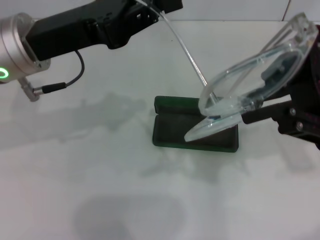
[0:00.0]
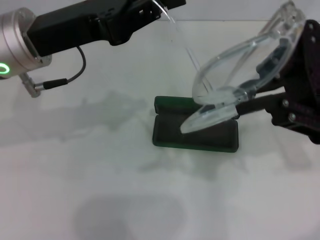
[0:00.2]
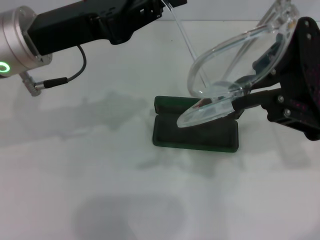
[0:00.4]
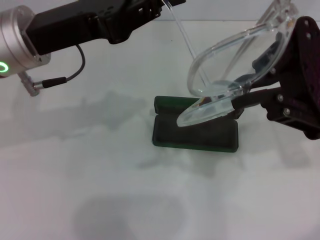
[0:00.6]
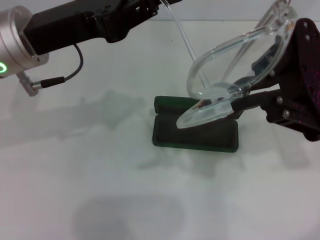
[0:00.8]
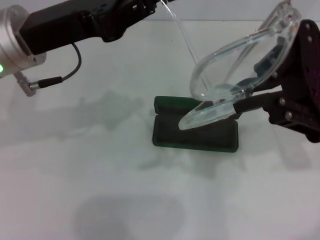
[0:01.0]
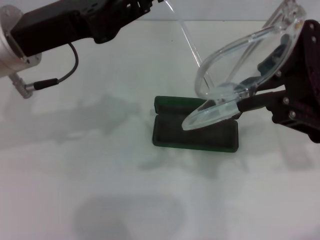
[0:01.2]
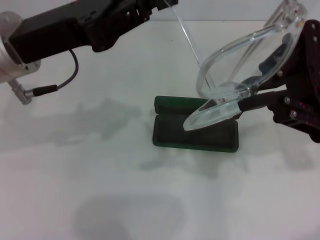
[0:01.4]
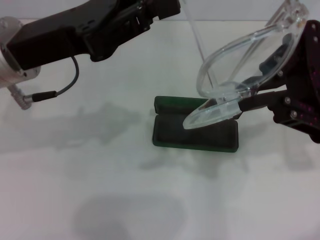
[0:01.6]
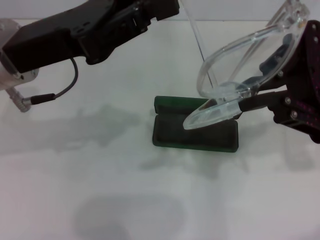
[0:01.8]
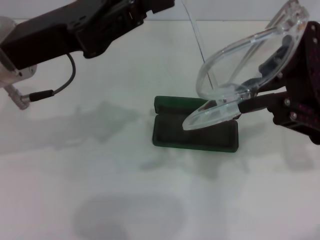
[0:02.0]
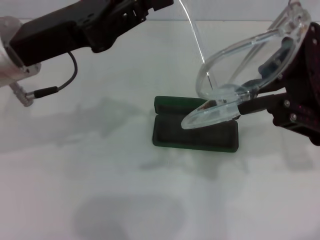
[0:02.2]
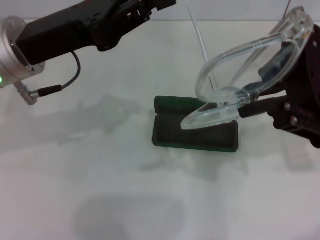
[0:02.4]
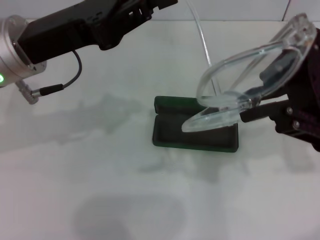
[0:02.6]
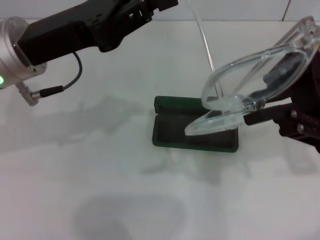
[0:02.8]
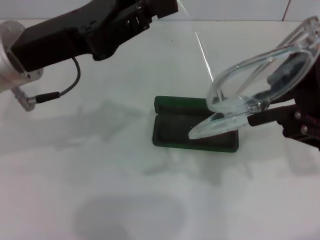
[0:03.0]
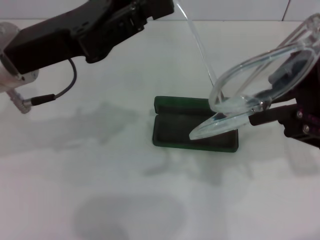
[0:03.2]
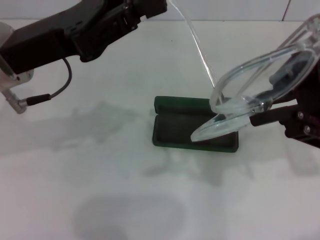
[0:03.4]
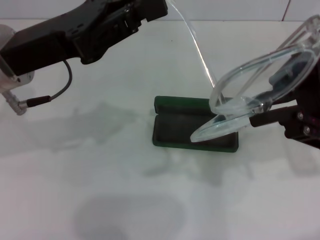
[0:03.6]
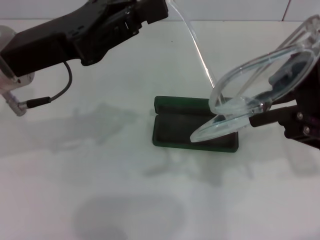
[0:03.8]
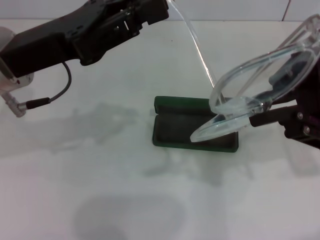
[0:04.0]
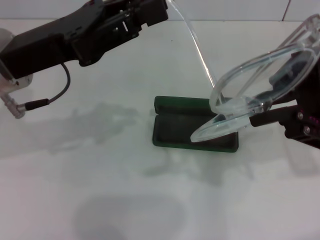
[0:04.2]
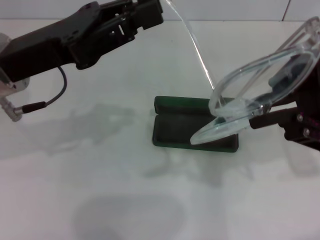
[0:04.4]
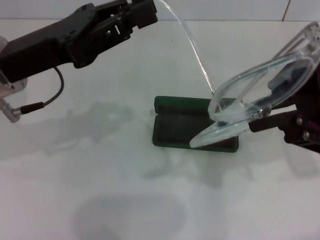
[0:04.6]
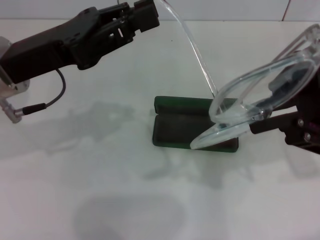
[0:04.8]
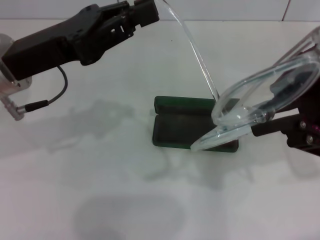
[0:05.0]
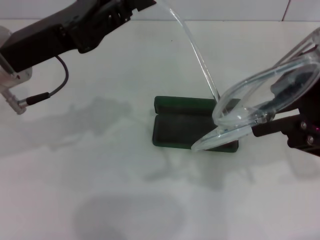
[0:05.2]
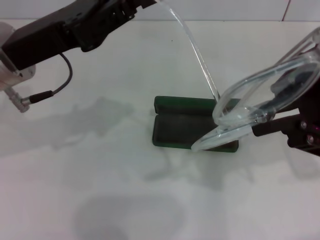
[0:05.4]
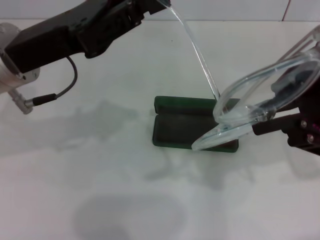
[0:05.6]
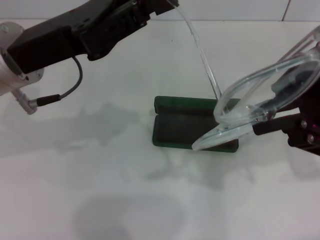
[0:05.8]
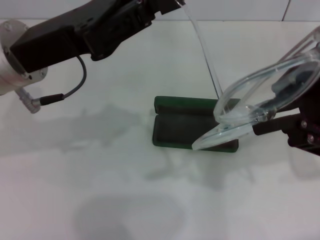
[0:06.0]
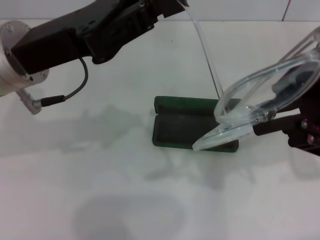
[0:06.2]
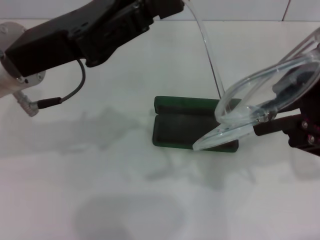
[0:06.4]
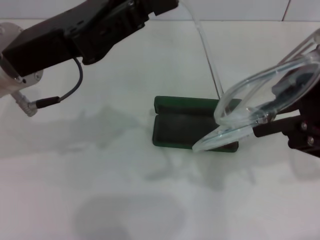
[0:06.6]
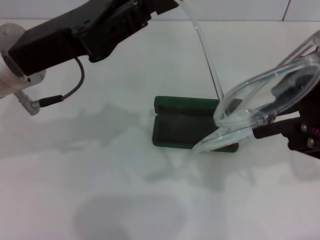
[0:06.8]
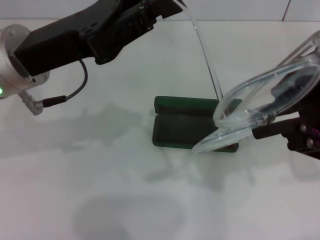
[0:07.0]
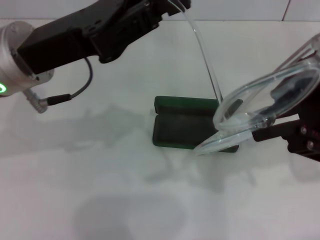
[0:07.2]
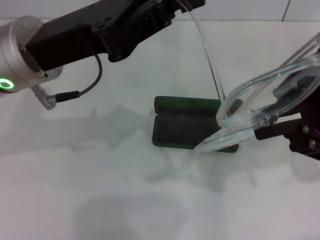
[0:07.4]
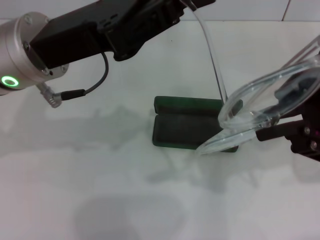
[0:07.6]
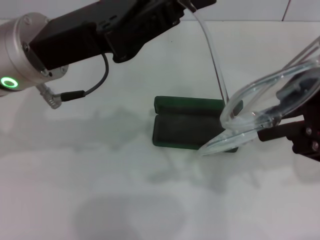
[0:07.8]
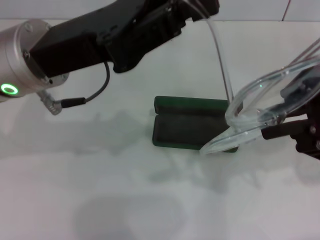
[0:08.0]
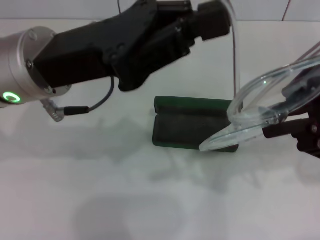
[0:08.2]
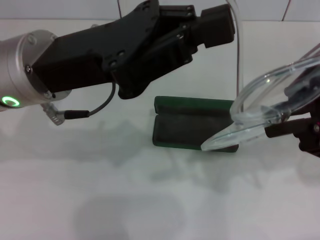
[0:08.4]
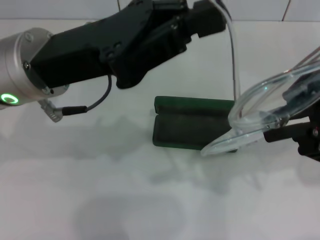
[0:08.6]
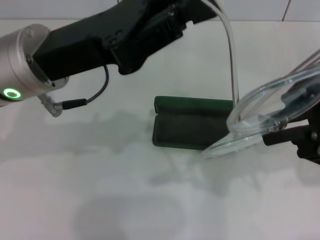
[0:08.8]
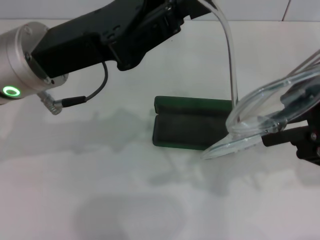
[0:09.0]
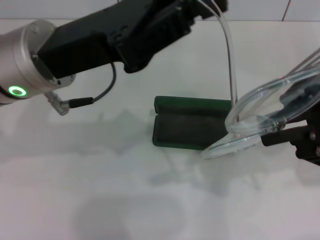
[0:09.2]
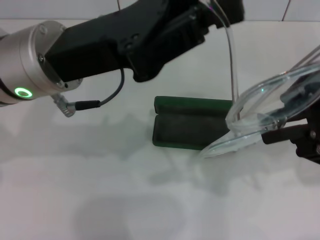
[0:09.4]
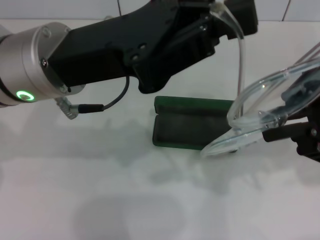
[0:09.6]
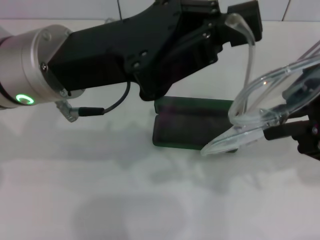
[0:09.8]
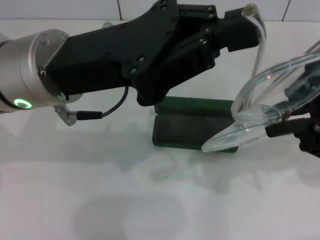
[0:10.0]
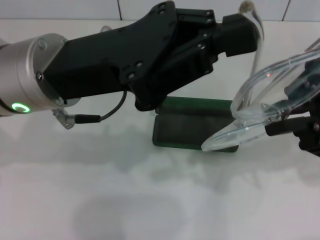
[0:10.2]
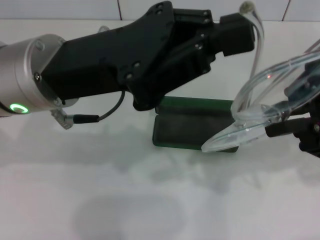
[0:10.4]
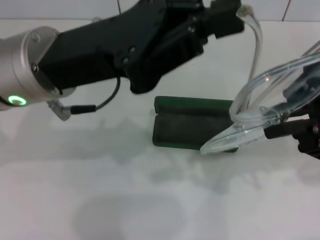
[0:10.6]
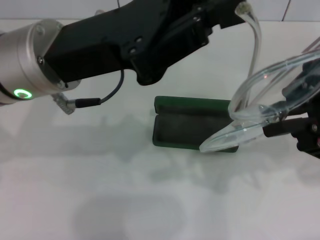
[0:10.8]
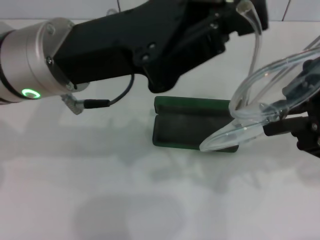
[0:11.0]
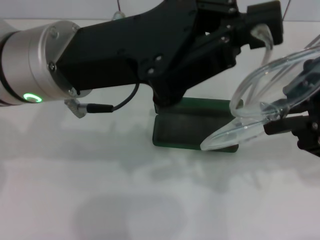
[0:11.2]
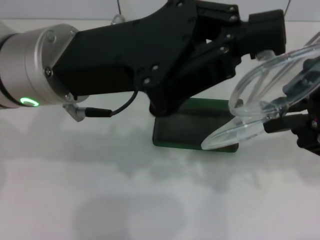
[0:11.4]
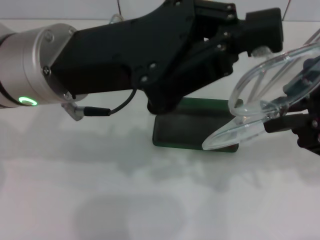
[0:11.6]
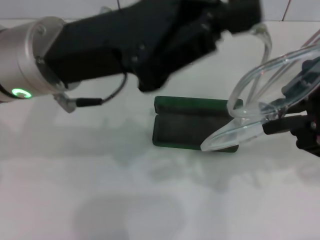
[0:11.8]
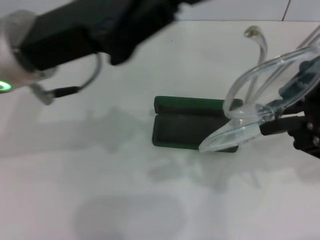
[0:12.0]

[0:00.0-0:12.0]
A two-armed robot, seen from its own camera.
Step, 0:00.0 to 0:11.4: Fold the frame with your left hand.
0:00.0 to 0:09.0: The grippers stay close to where they were, moving slightly.

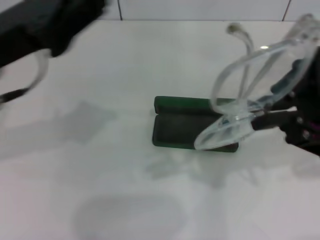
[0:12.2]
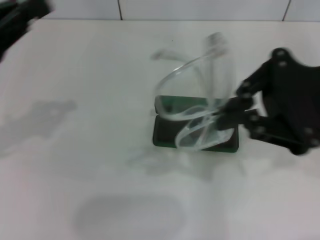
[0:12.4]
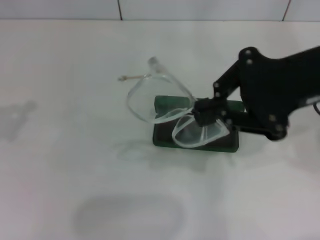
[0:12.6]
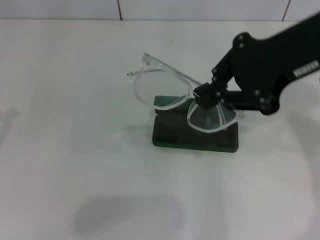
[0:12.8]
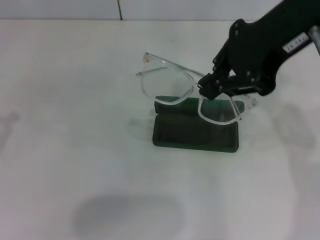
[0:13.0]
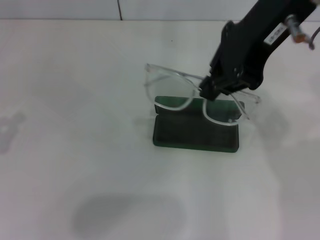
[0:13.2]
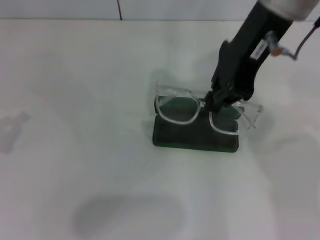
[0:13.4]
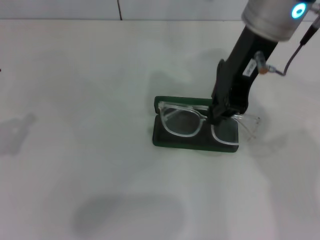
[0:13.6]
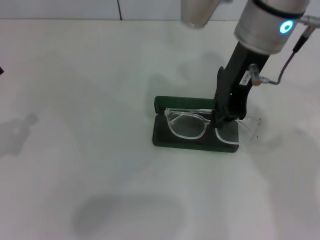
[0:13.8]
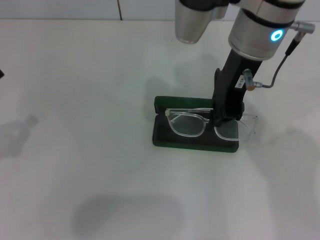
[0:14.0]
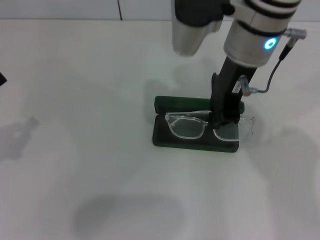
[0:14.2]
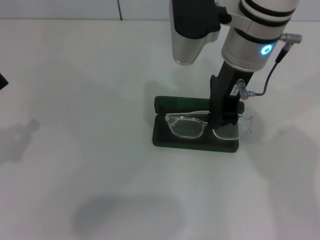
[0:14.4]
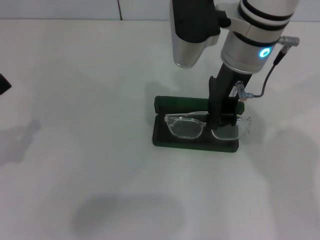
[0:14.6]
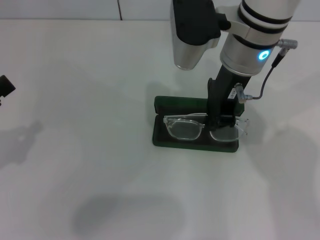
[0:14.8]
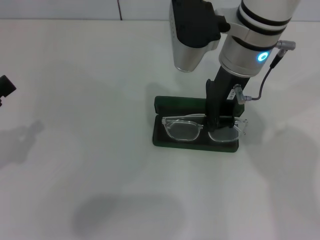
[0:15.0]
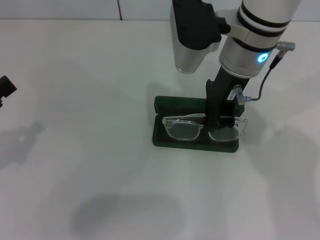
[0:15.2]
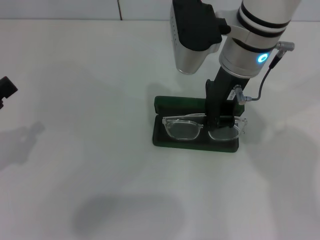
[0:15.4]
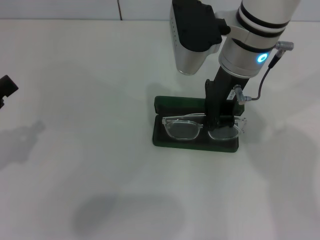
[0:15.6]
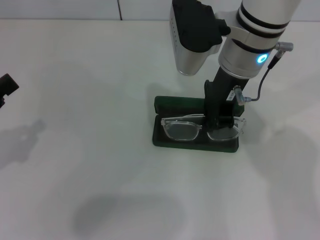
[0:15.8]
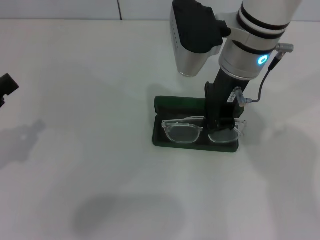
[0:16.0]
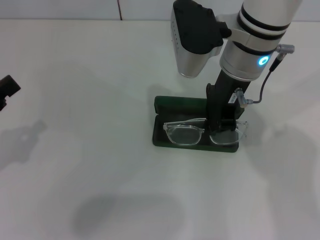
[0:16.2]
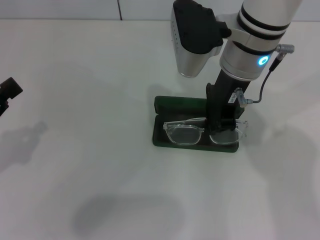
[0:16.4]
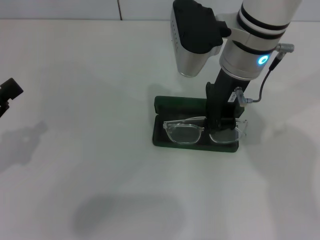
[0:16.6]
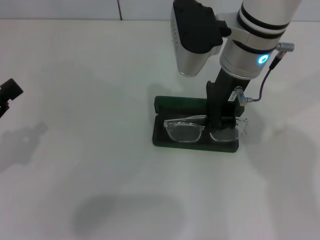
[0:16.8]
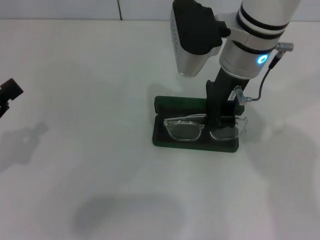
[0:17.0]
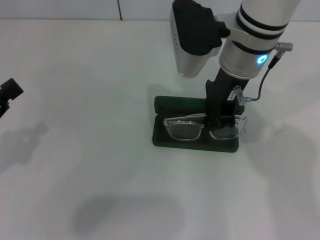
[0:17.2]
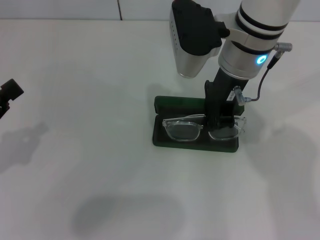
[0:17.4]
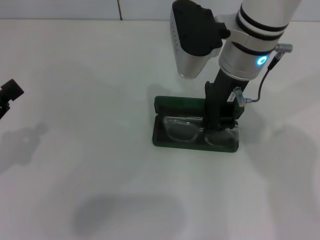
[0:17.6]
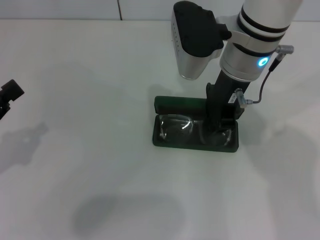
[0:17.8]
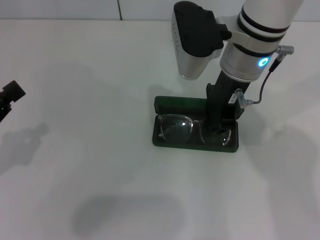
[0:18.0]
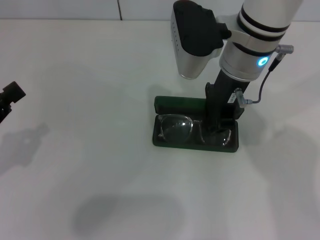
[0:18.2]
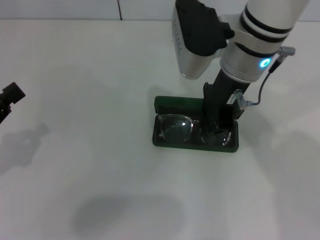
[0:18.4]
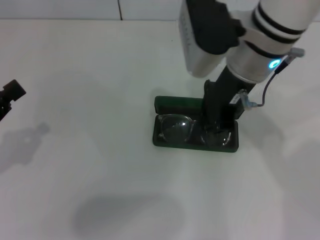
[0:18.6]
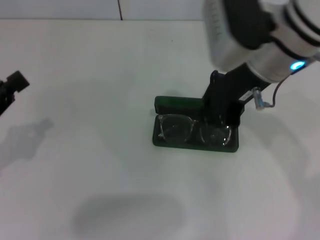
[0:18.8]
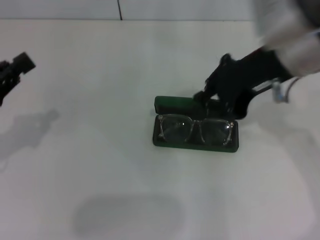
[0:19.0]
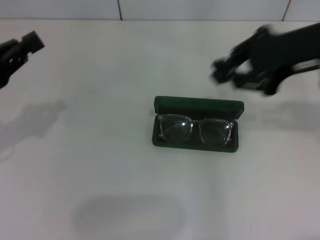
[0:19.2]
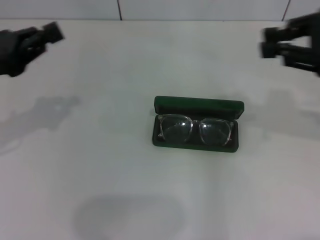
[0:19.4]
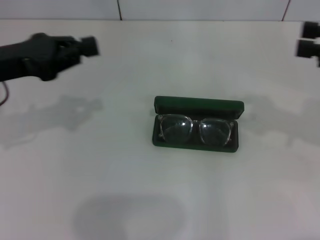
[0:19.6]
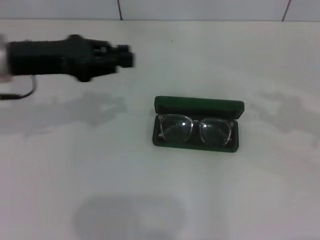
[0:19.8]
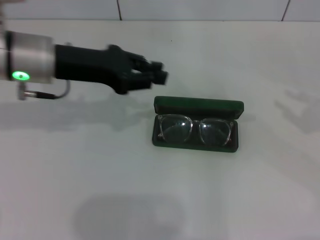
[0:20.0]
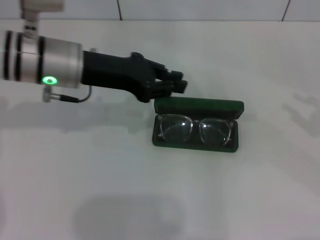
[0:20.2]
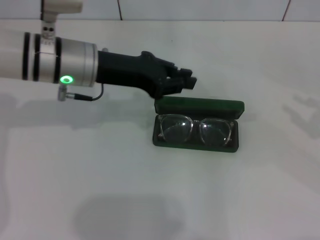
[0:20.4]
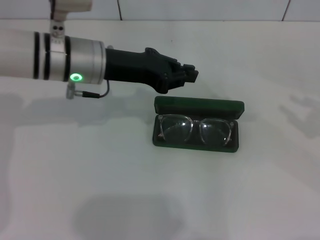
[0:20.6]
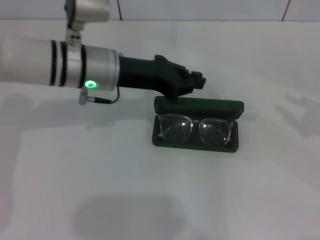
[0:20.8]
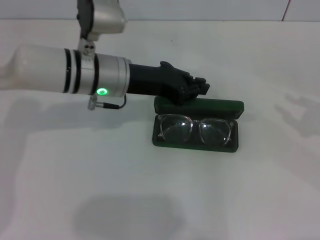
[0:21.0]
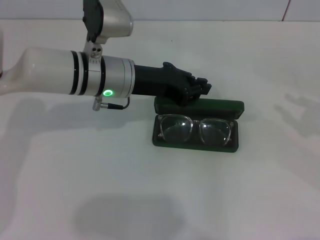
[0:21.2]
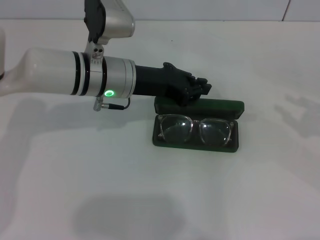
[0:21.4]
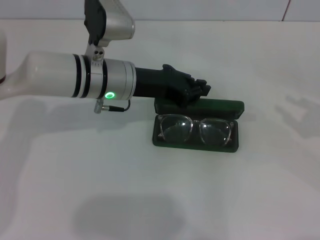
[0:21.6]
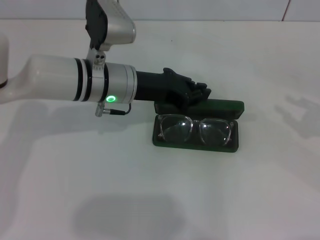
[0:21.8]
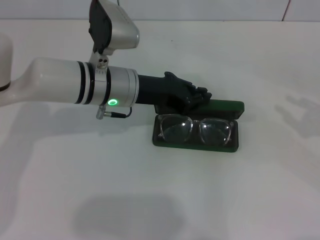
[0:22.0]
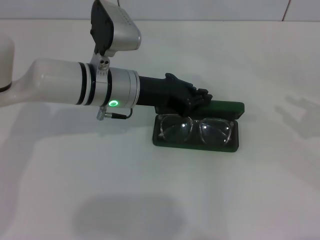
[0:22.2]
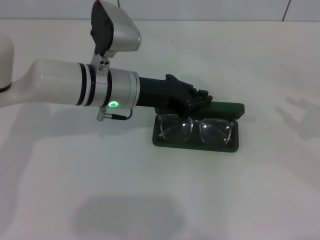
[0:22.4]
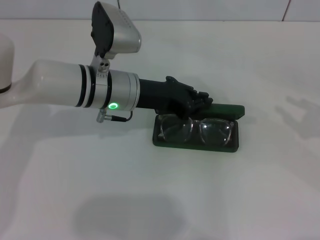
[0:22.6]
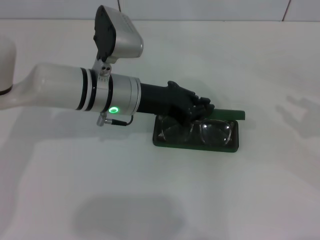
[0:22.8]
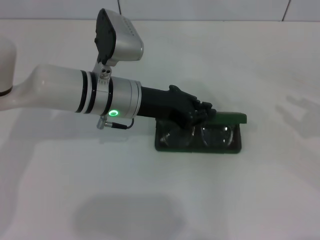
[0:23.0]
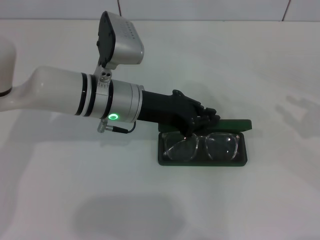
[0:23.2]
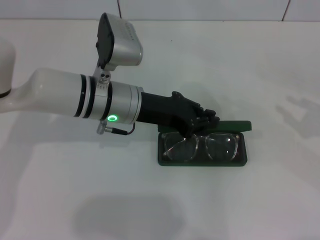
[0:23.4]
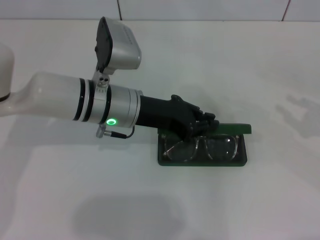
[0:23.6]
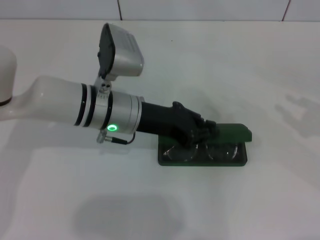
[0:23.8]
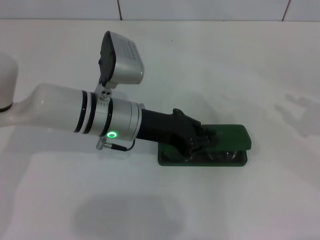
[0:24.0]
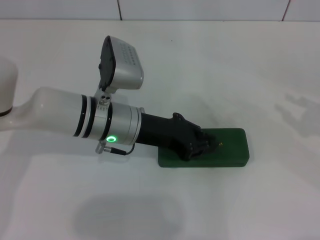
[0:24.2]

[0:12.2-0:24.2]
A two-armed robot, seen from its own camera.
Step, 0:12.2 to 0:18.2: Put the glasses into the case with your right hand.
Step, 0:18.4 to 0:24.0: Close the glasses case with your left hand.
0:12.2 to 0:13.8: The left gripper moves to the left, downward and backward, approximately 15 cm, while the right gripper is displaced to the left and forward by approximately 15 cm.
0:13.8 to 0:15.2: The right gripper heads downward, covering approximately 5 cm.
0:15.2 to 0:18.2: The two grippers keep their place.
0:18.2 to 0:19.8: The right gripper moves to the right and backward, roughly 30 cm. The left gripper moves forward, to the right and upward, some 20 cm.
0:19.8 to 0:21.2: The left gripper heads to the right and downward, covering roughly 15 cm. The right gripper travels downward by about 5 cm.
0:21.2 to 0:24.2: The grippers stay close to where they were, moving slightly.
